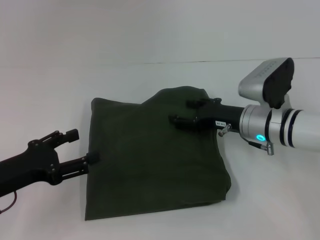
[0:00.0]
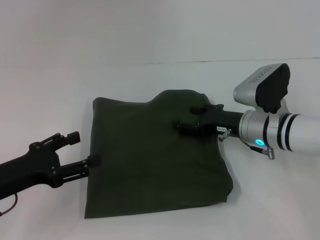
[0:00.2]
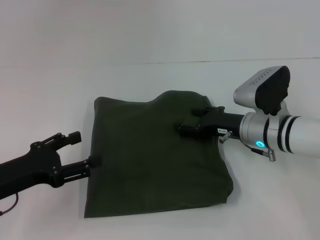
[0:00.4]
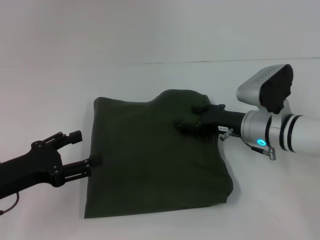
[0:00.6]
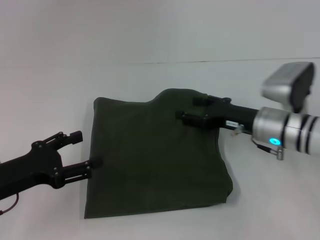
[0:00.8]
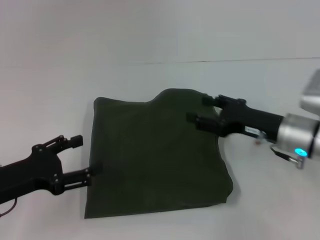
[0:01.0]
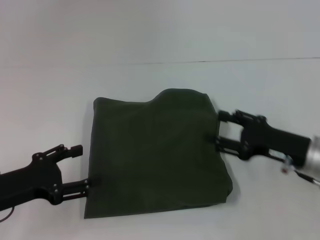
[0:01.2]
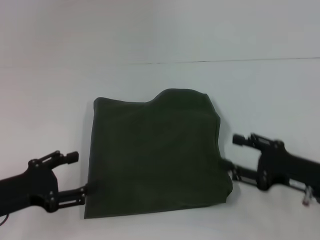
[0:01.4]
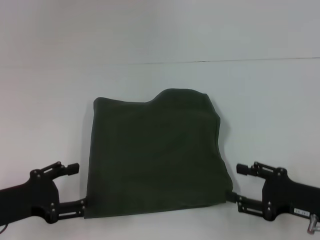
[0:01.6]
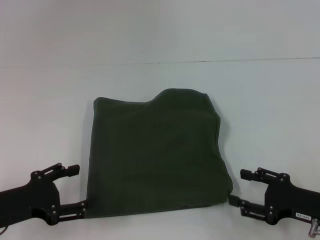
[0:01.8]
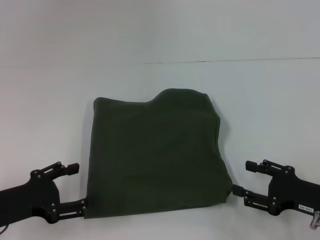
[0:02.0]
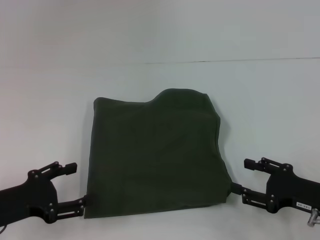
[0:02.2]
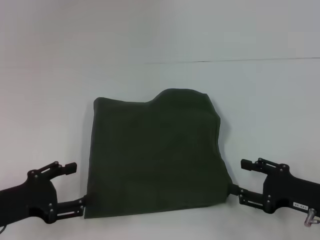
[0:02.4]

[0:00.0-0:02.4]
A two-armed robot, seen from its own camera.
0:00.0 to 0:01.2: The right gripper moves backward and to the right, approximately 10 cm.
0:01.2 to 0:02.4: The right gripper is displaced backward by roughly 5 cm.

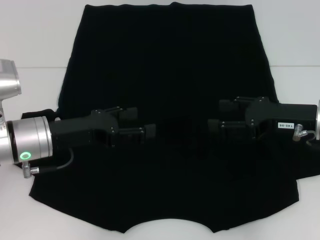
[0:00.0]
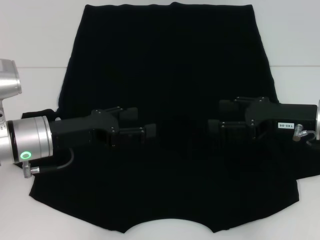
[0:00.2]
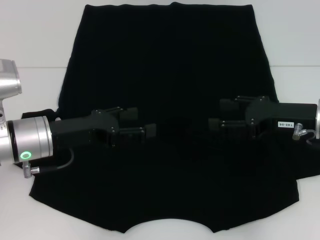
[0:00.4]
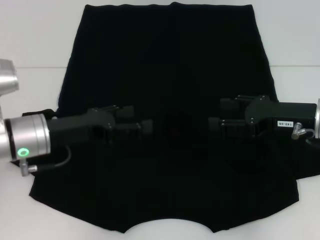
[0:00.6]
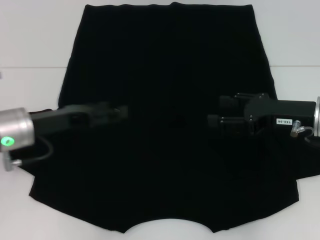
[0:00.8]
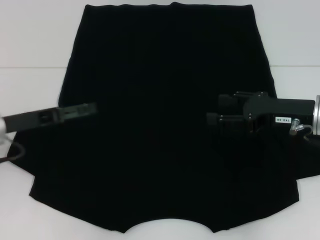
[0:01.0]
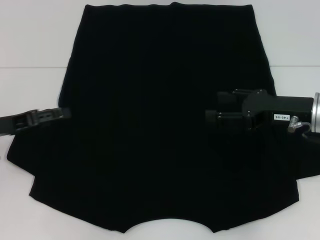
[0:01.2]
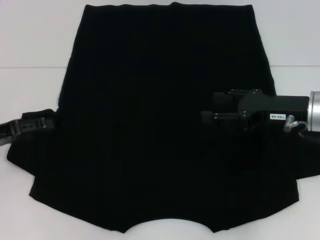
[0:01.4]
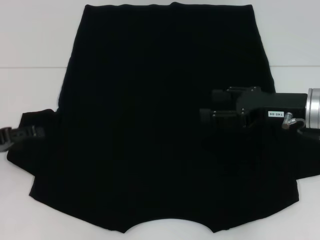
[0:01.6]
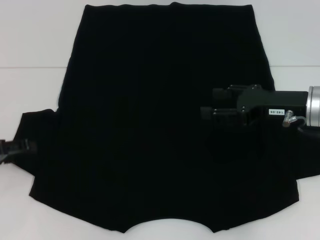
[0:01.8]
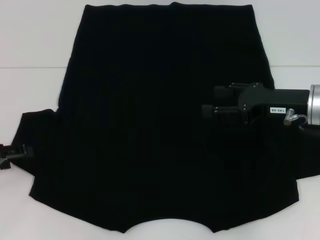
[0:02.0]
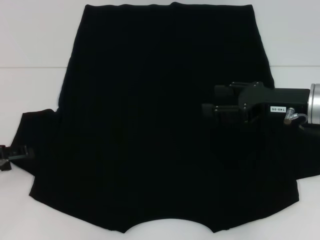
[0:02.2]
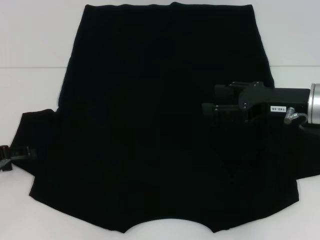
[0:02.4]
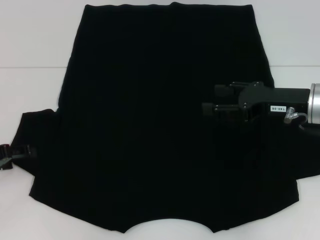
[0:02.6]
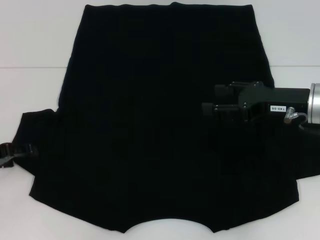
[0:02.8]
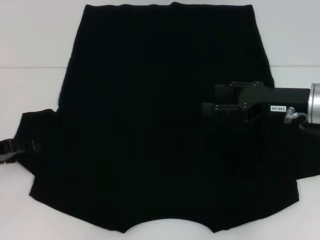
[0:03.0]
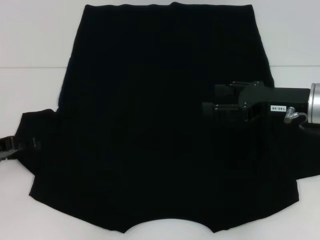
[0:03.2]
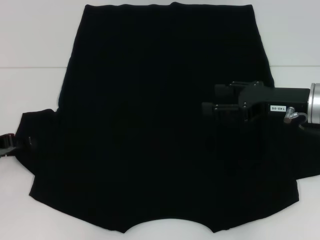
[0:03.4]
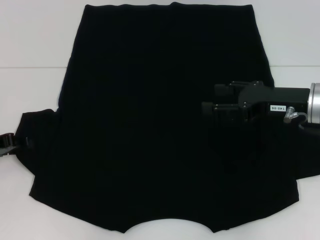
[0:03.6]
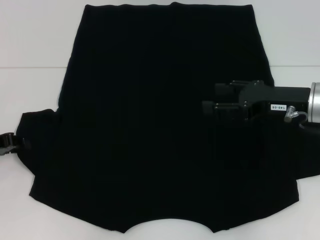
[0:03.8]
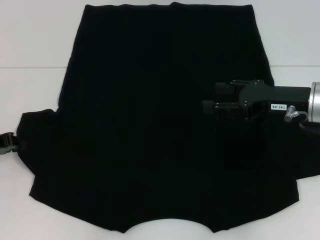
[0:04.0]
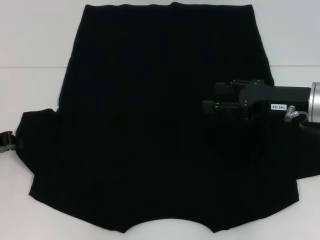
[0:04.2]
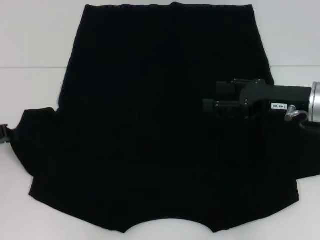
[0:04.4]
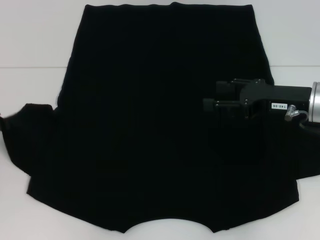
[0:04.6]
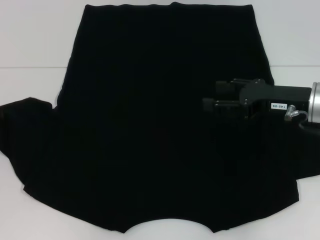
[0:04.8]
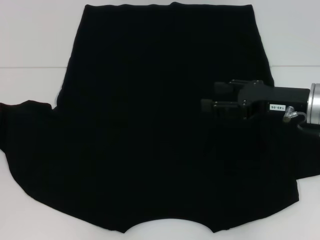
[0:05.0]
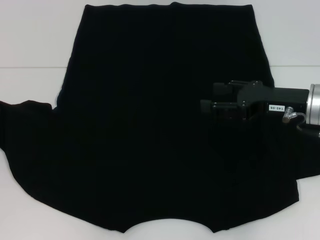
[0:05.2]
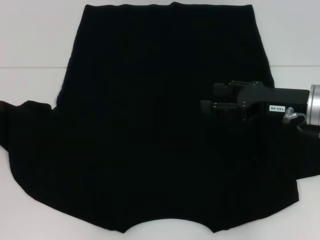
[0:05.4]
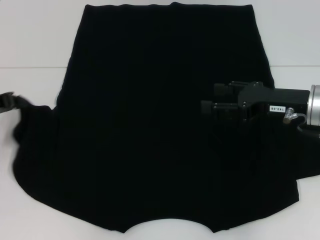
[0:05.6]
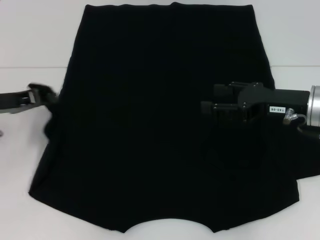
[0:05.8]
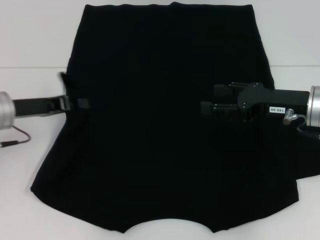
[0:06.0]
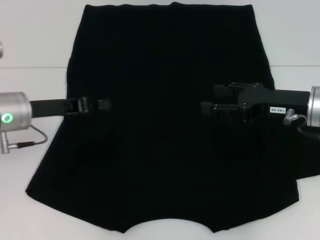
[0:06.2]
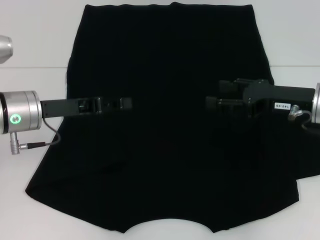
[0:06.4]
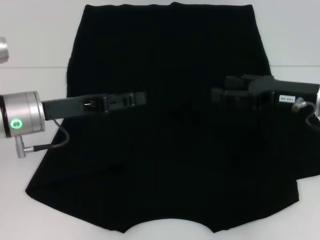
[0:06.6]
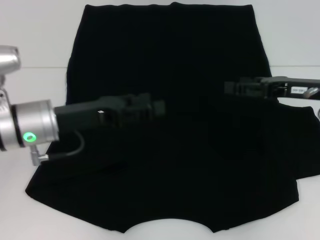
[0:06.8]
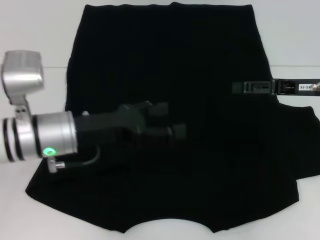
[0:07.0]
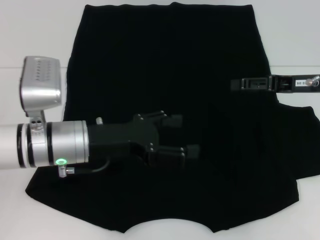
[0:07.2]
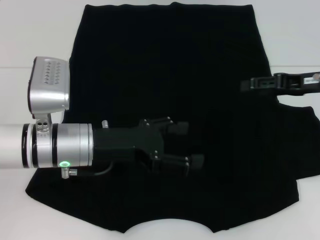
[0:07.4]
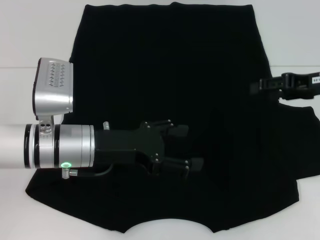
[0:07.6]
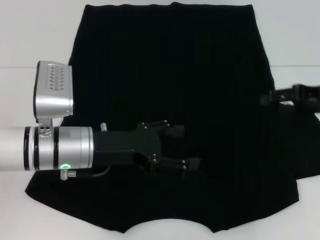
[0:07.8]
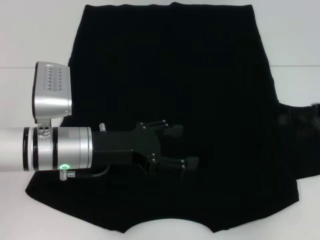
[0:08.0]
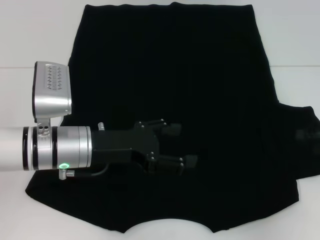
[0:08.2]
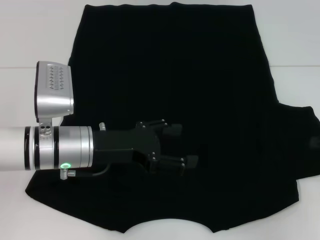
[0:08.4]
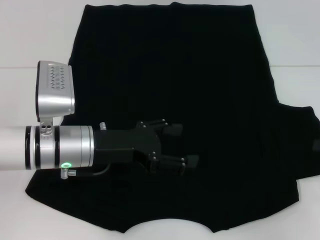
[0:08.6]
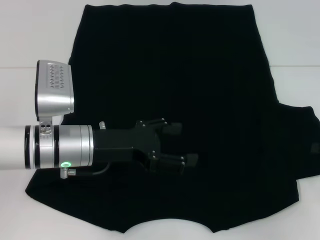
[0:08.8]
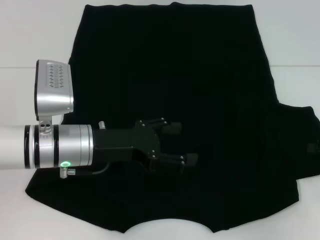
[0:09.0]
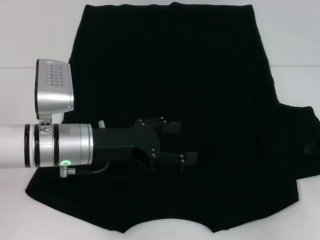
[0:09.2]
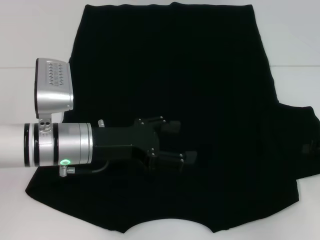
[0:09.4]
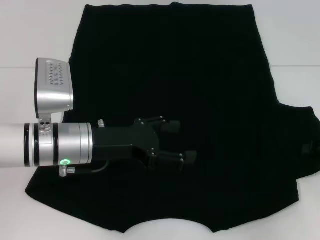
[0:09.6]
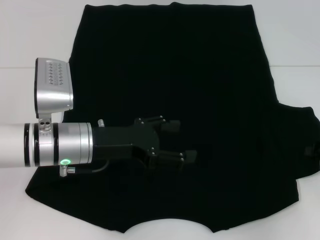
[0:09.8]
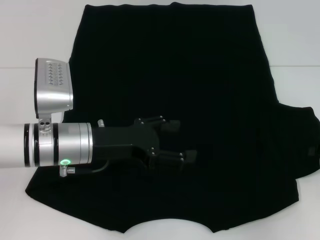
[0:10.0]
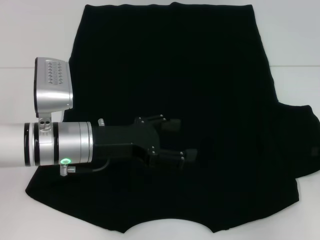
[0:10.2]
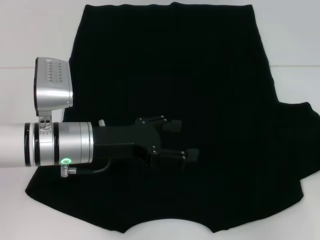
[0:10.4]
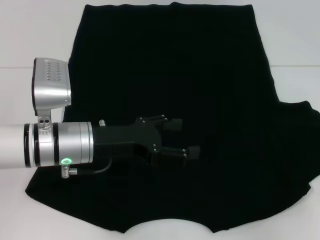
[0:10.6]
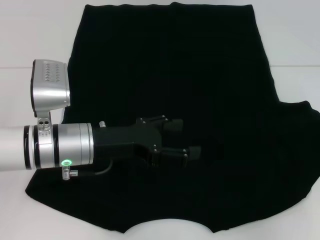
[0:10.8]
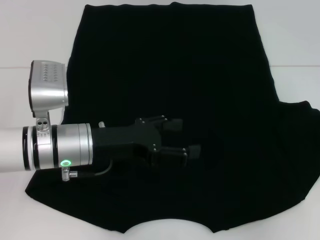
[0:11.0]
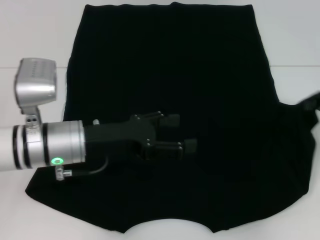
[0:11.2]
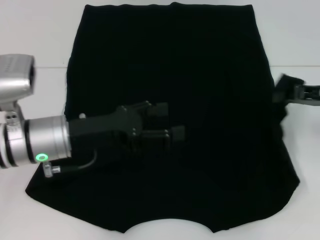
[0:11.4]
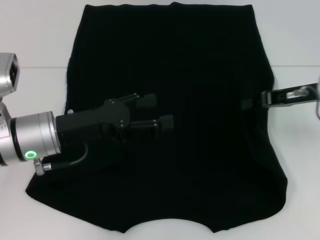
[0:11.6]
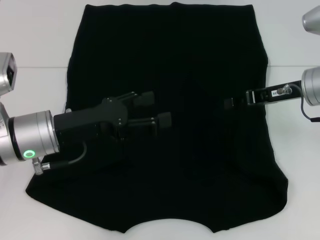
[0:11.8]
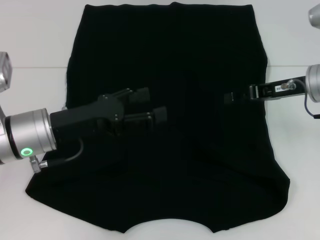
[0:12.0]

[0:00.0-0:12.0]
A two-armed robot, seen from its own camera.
Step, 0:00.0 to 0:06.2: Fold the bottom left sleeve with your left hand.
Step, 0:06.4 to 0:11.8: Fold the bottom right sleeve with your right hand.
0:00.0 to 0:01.6: The left gripper travels to the left by some 15 cm.
0:01.6 to 0:03.0: The grippers stay close to where they were, moving slightly.
0:03.0 to 0:04.4: The left gripper closes.
0:04.4 to 0:06.0: The left gripper goes approximately 10 cm to the right.
0:06.0 to 0:07.6: The left gripper travels to the right by roughly 10 cm, and opens; the right gripper travels to the right by roughly 5 cm.
0:07.6 to 0:09.0: The right gripper travels to the right, downward and backward by approximately 15 cm.
0:09.0 to 0:10.4: The right gripper closes up.
0:10.4 to 0:12.0: The right gripper is displaced to the left, forward and upward by roughly 15 cm.

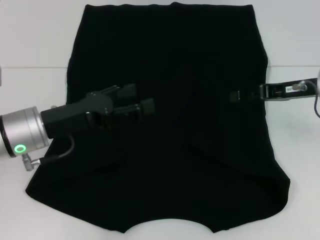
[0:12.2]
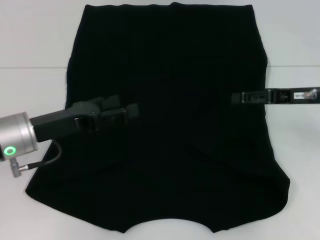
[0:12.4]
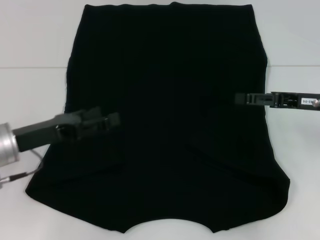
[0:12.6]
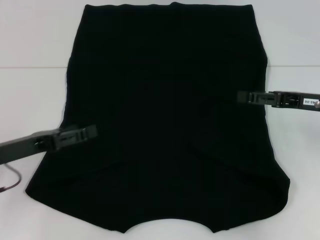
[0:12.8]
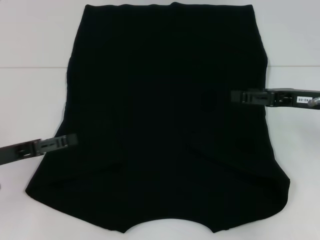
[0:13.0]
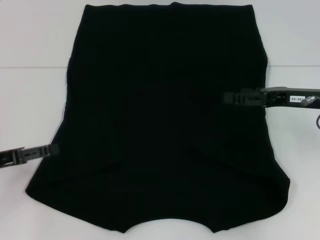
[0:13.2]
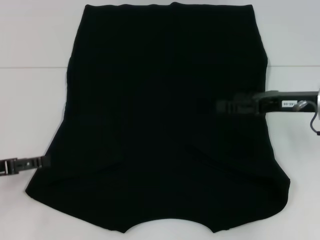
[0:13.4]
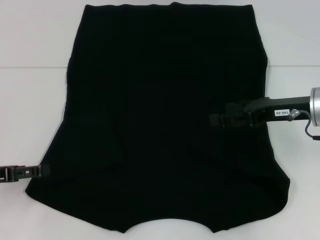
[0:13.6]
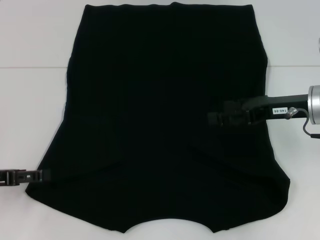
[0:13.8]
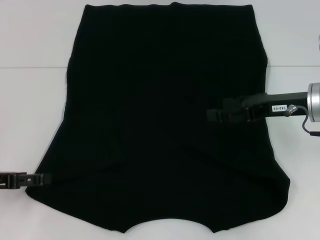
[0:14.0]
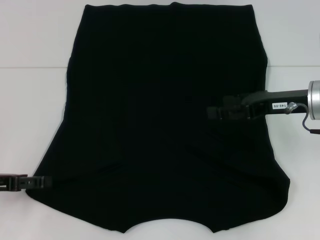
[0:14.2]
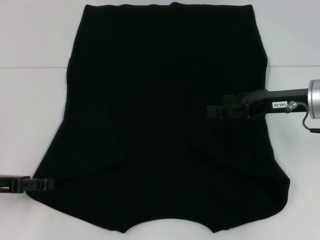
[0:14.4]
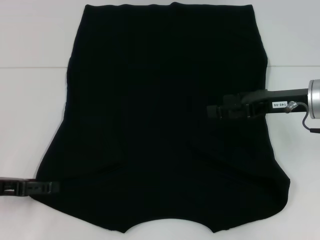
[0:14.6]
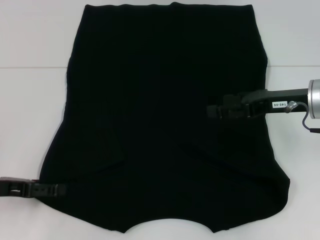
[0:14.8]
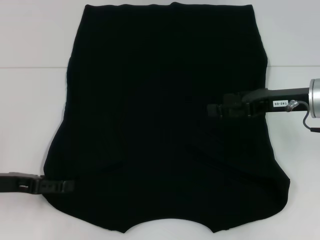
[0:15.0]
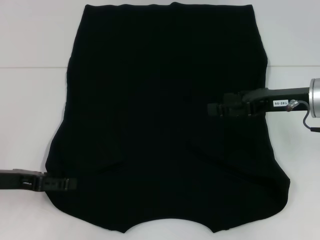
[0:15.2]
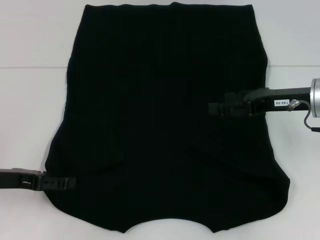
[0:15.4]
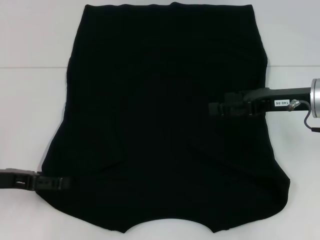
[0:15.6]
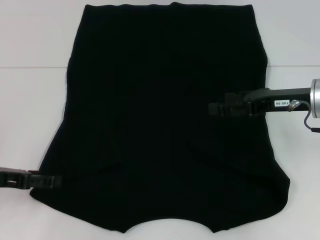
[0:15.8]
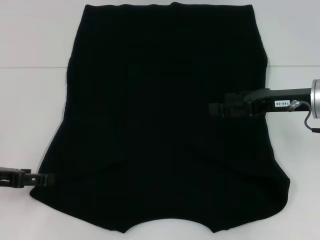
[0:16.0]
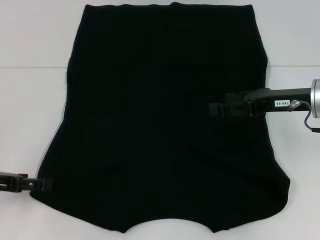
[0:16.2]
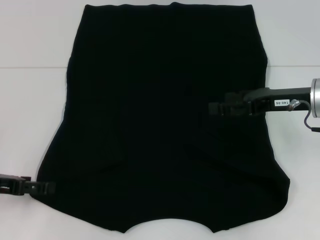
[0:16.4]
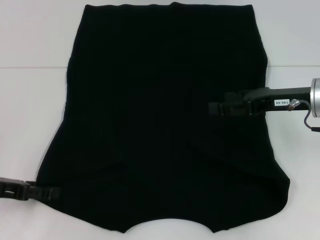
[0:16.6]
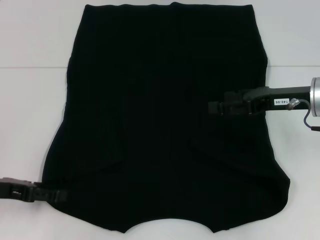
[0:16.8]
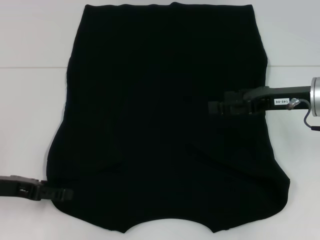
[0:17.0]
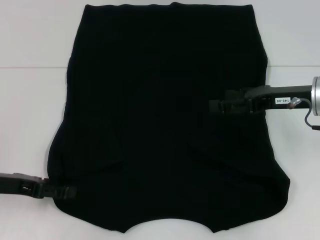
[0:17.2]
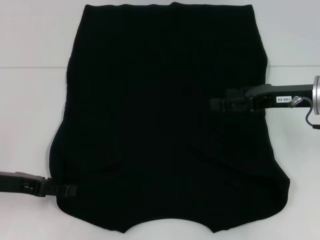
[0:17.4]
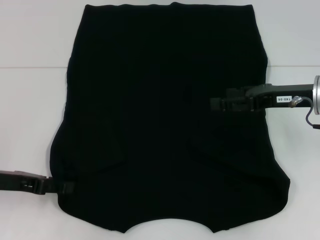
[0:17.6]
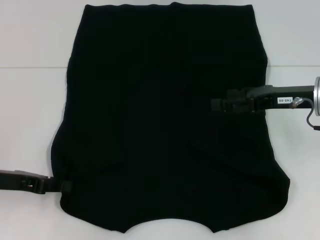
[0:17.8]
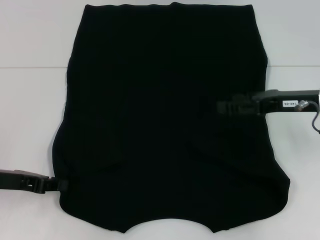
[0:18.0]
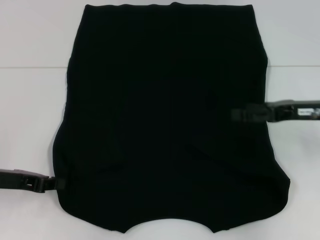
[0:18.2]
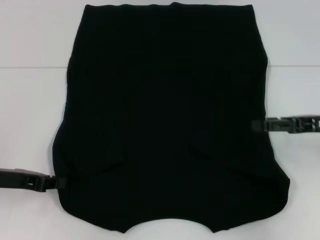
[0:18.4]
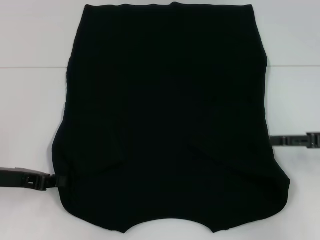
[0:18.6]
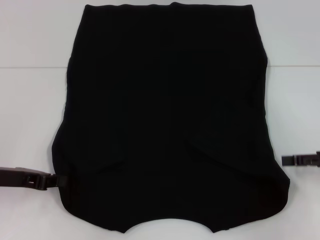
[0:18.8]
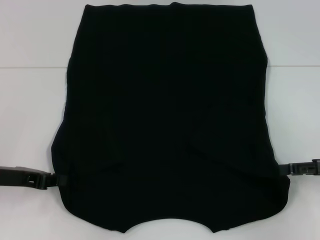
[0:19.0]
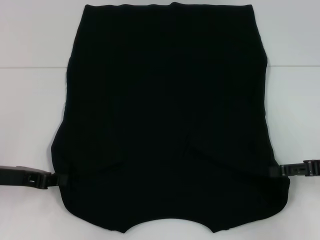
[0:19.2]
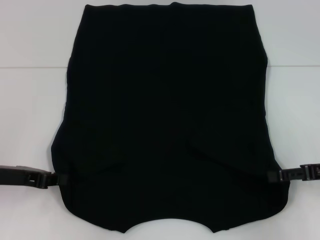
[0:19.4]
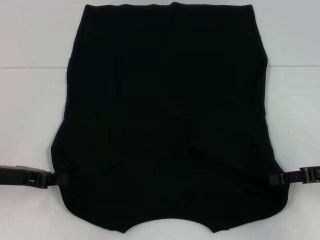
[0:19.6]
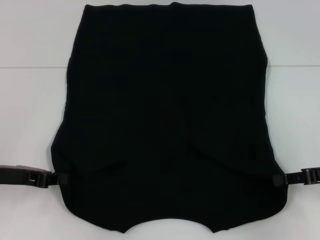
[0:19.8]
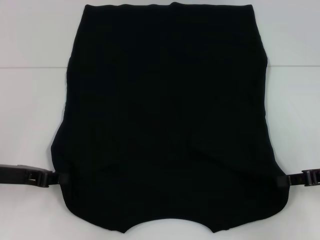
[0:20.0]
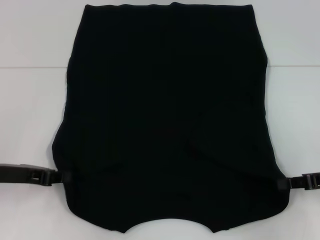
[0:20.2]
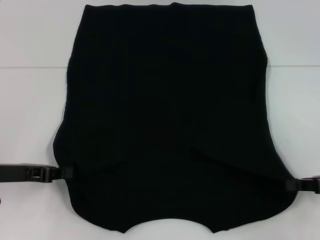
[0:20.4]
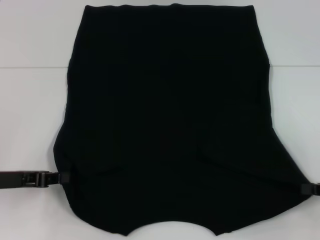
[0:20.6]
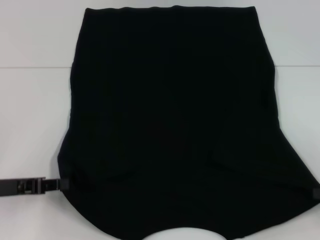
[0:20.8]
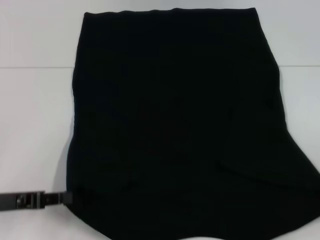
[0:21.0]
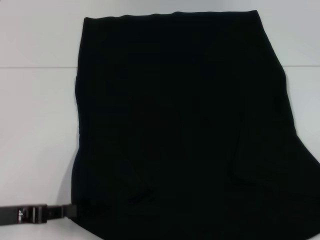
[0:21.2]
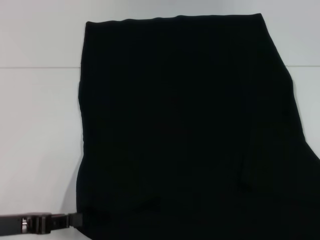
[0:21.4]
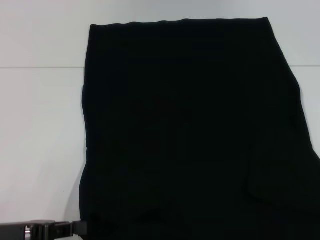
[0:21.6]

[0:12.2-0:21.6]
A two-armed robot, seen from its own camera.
Step, 0:12.2 to 0:18.2: Grab the bottom left corner with your left hand.
Step, 0:18.4 to 0:20.2: Grab the bottom right corner with your right hand.
0:12.2 to 0:13.8: The right gripper opens up, while the left gripper travels to the left and backward by approximately 15 cm.
0:13.8 to 0:17.0: There are only small adjustments of the grippers.
0:17.0 to 0:18.4: The left gripper closes; the right gripper travels to the right by some 5 cm.
0:18.4 to 0:20.0: The right gripper changes place by some 5 cm, and closes up.
0:20.0 to 0:21.6: The right gripper is displaced backward and to the right by roughly 15 cm. The left gripper heads backward, covering roughly 10 cm.
